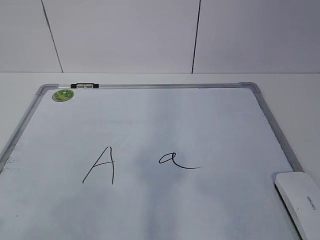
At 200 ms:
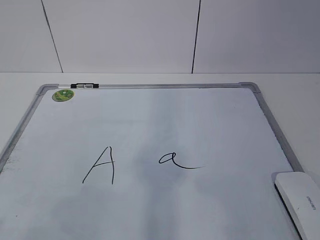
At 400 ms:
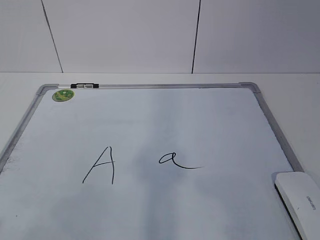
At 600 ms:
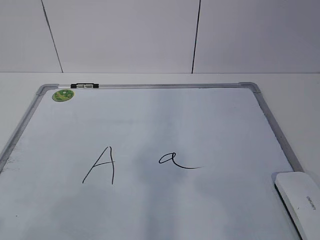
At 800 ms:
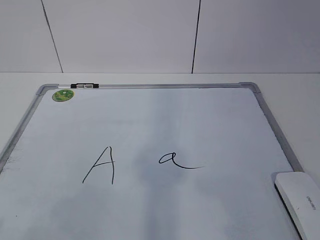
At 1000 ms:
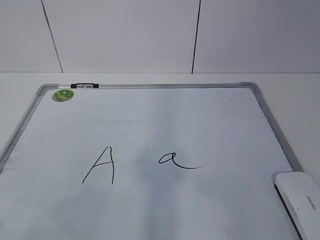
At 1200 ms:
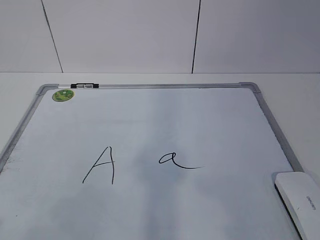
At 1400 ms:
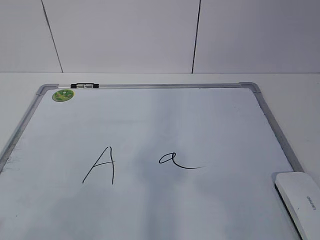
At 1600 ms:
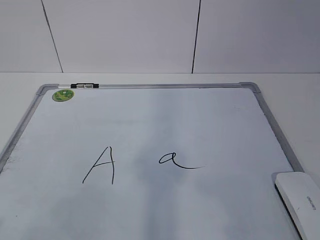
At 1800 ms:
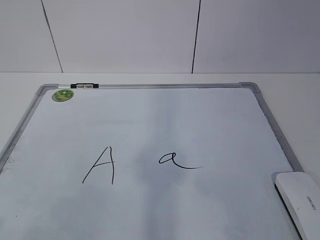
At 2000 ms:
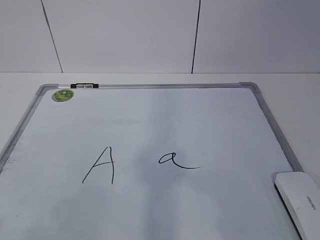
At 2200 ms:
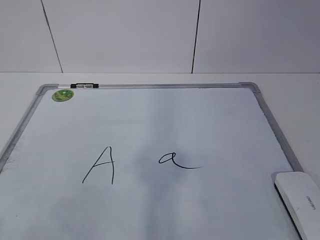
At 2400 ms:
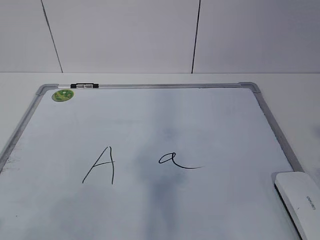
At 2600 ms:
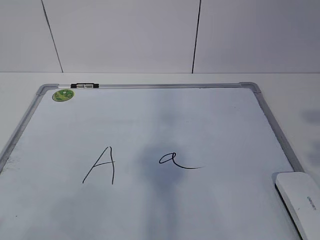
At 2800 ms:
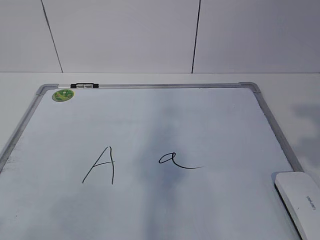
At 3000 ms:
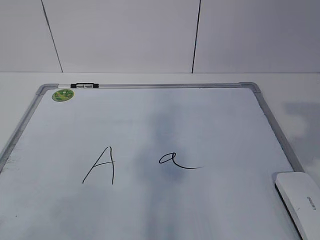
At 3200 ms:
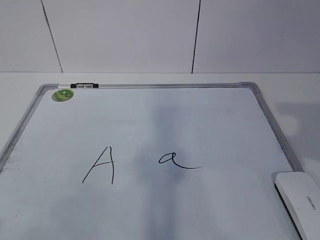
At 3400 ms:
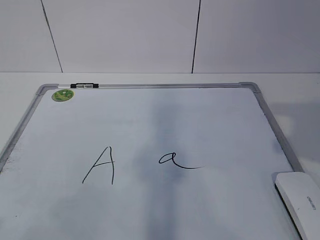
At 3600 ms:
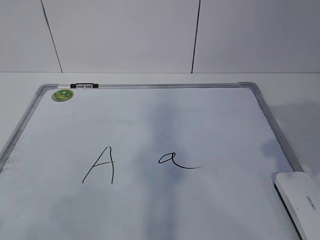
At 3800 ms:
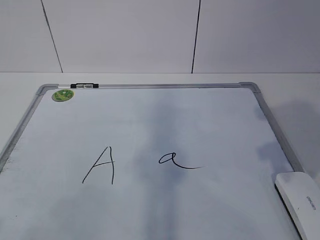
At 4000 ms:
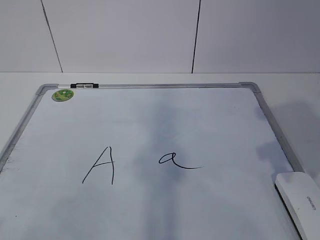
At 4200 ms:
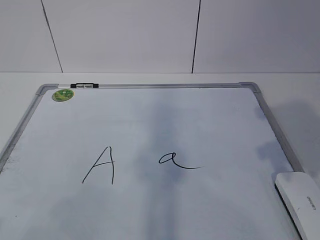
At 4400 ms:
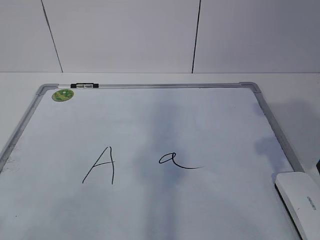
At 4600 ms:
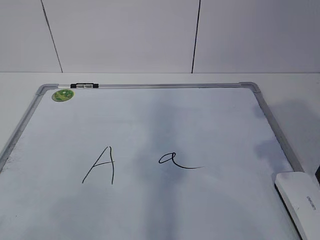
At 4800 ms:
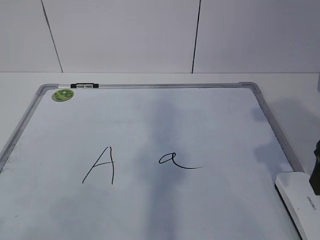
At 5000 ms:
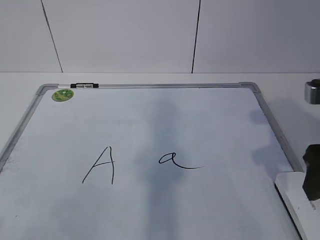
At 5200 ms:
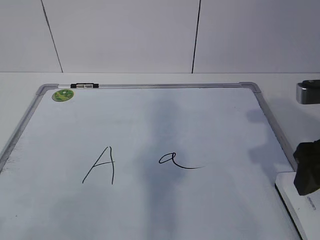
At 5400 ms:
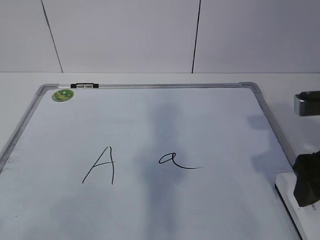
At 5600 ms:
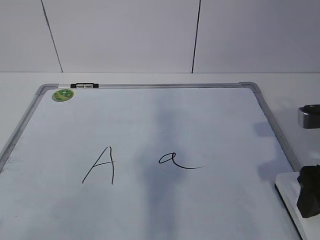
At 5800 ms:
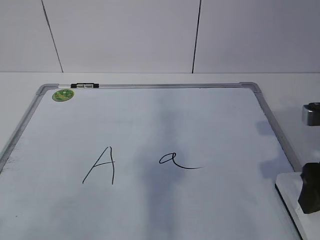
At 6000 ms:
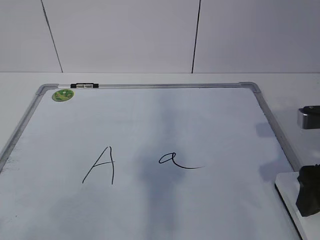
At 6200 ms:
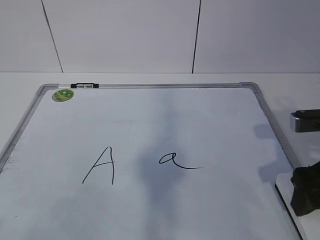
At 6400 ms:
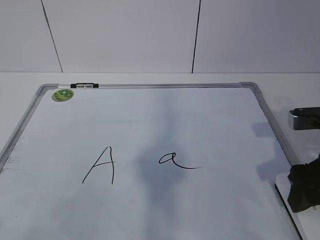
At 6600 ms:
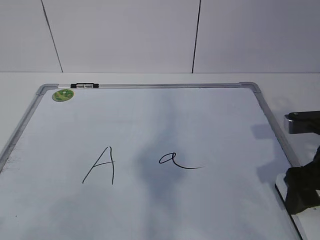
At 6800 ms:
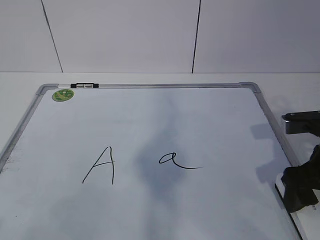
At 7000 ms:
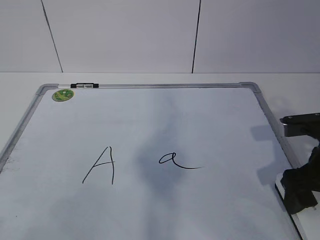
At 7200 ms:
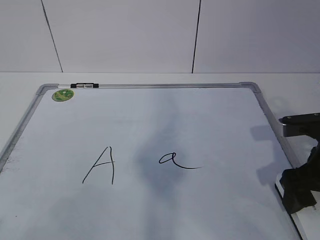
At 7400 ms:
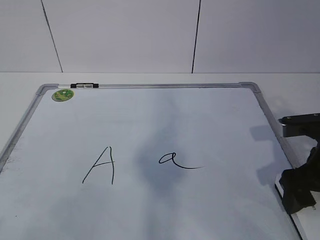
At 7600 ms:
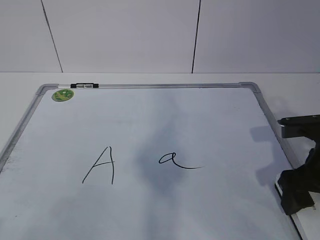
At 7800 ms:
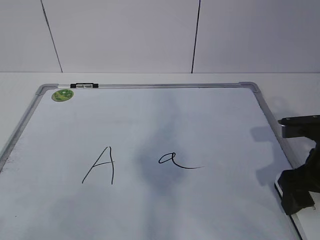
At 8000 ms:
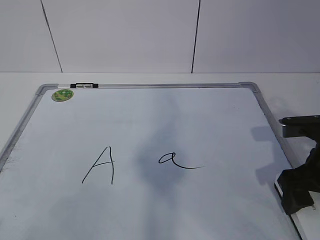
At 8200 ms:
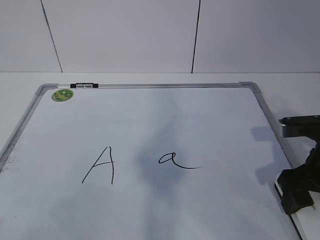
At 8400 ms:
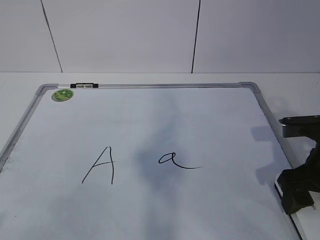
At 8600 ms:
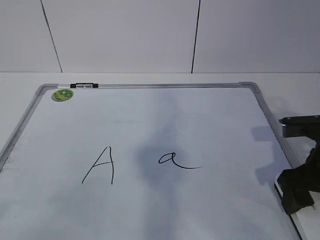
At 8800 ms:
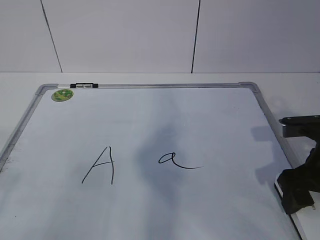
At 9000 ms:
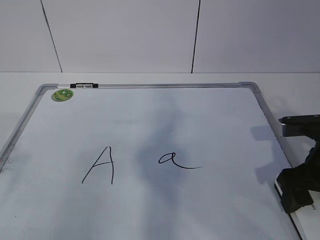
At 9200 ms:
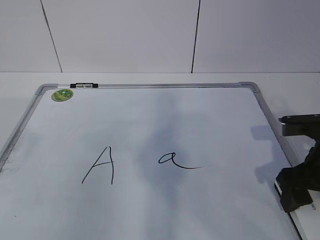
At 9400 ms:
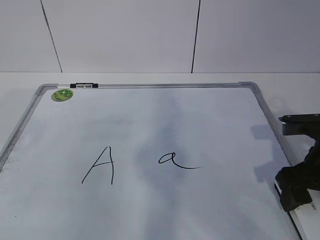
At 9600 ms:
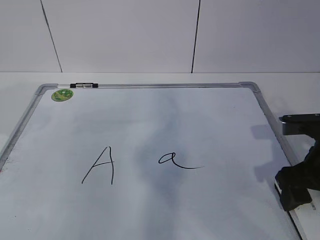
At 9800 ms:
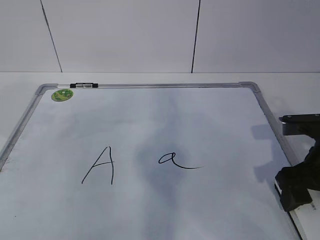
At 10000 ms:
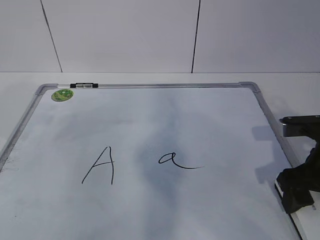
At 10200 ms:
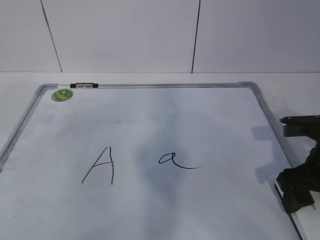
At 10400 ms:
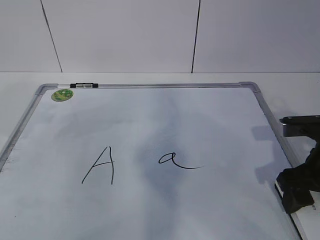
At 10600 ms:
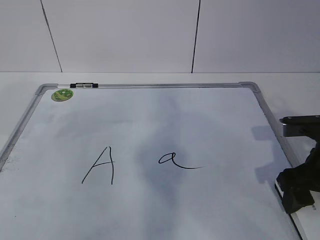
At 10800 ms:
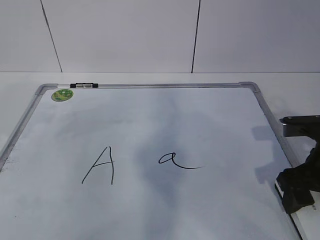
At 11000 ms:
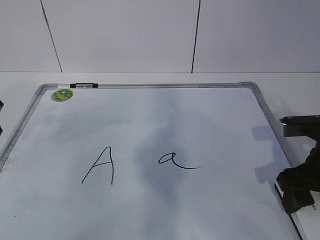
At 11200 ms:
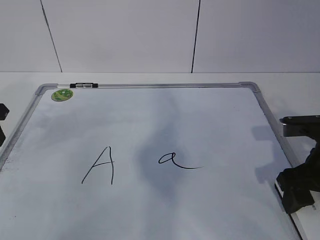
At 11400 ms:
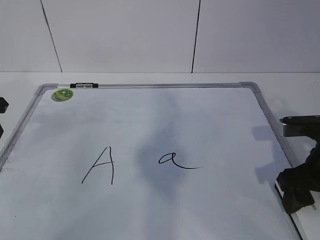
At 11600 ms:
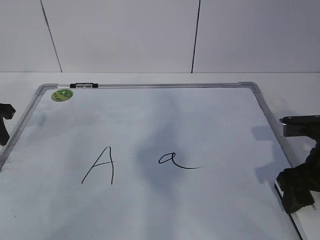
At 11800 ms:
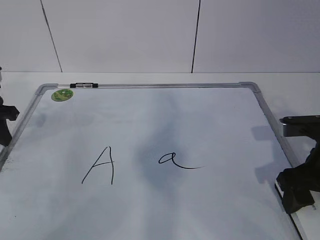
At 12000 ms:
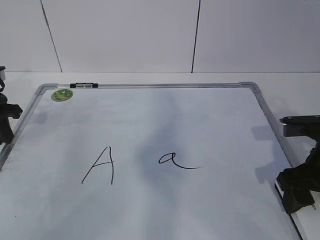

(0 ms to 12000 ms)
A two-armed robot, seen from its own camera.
Task of the whole recording: pick up the eraser on the blackboard and erase the letter "a".
Step, 0 ms - 6400 ms: Grab the eraser with your right hand.
4400 ms - 6000 ms: The right gripper heads downward, covering approximately 10 cm.
6000 ms - 7600 ms: The right gripper shifts by roughly 5 cm.
10400 ms - 12000 ms: The left gripper moves downward and forward, about 10 cm, and closes its fingers.

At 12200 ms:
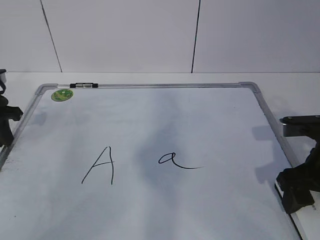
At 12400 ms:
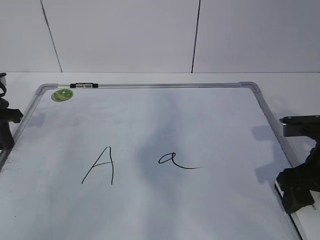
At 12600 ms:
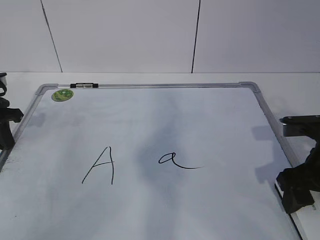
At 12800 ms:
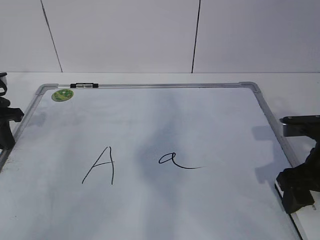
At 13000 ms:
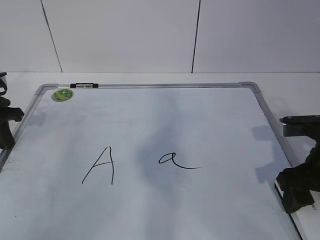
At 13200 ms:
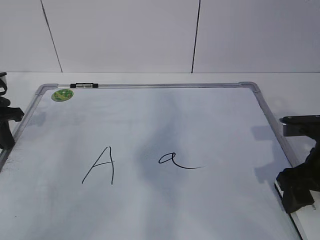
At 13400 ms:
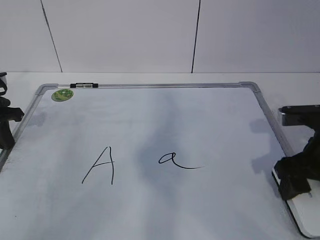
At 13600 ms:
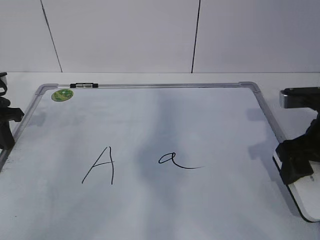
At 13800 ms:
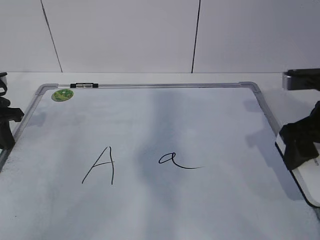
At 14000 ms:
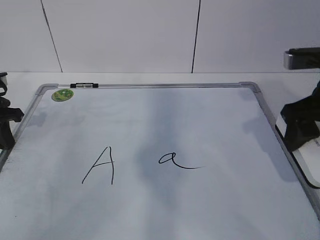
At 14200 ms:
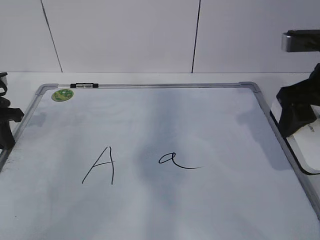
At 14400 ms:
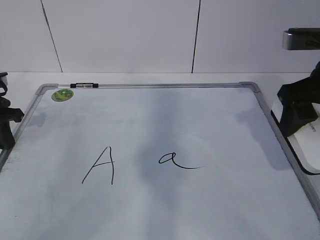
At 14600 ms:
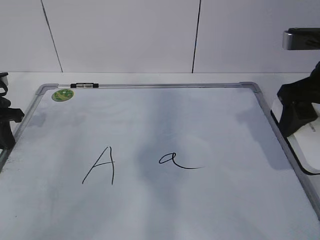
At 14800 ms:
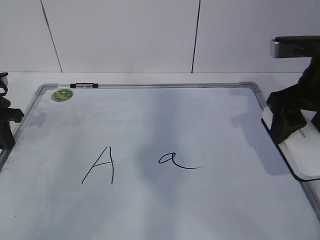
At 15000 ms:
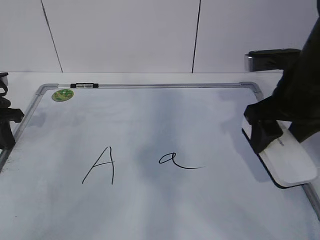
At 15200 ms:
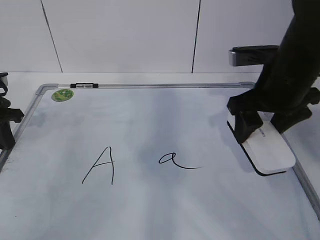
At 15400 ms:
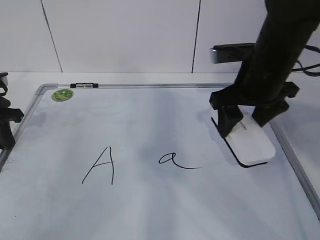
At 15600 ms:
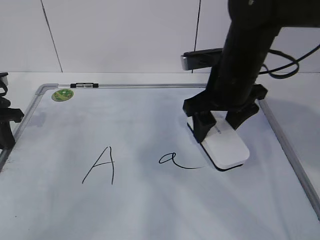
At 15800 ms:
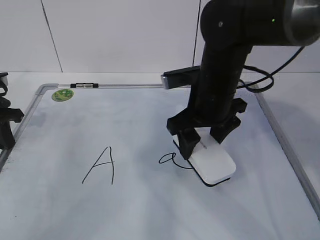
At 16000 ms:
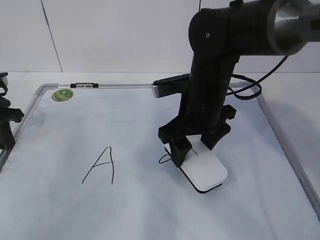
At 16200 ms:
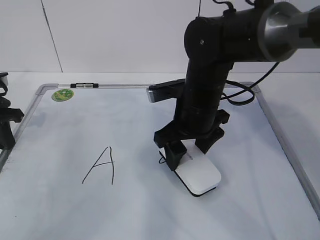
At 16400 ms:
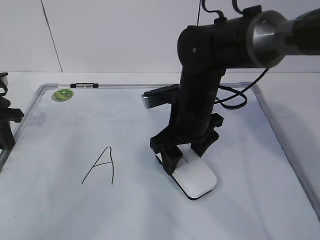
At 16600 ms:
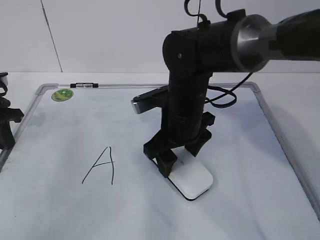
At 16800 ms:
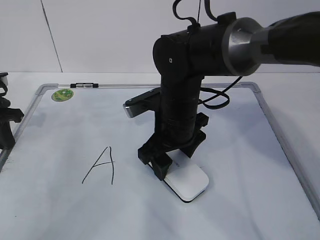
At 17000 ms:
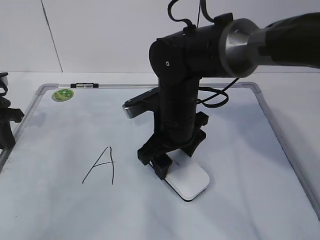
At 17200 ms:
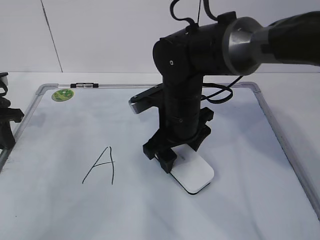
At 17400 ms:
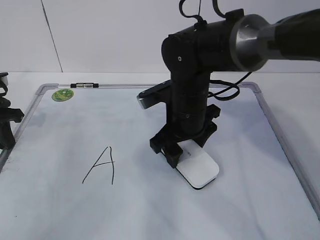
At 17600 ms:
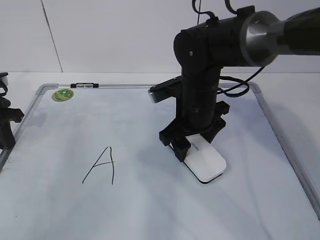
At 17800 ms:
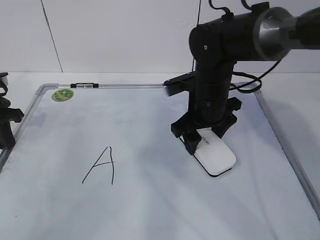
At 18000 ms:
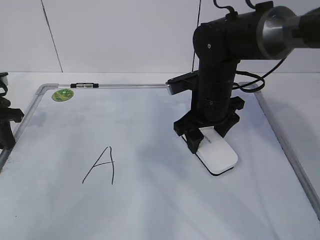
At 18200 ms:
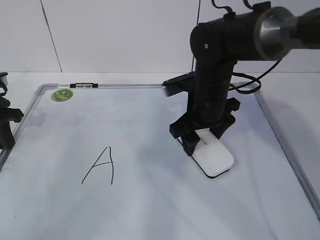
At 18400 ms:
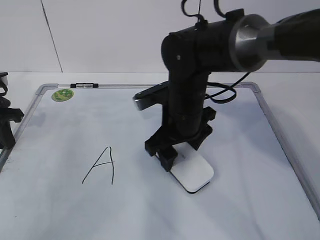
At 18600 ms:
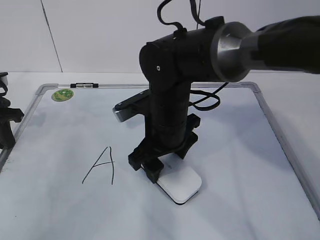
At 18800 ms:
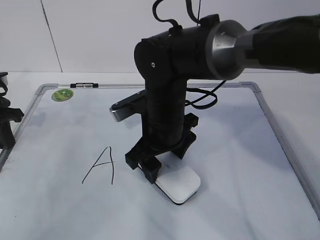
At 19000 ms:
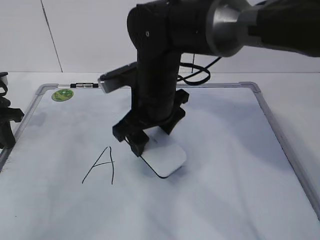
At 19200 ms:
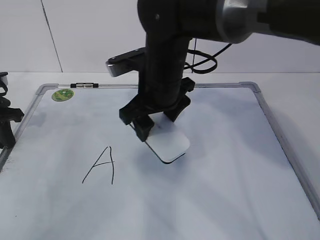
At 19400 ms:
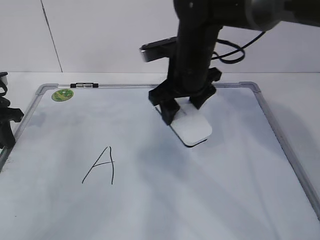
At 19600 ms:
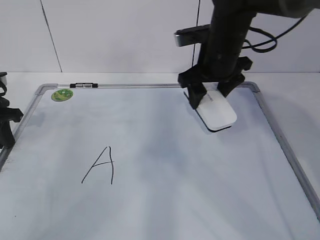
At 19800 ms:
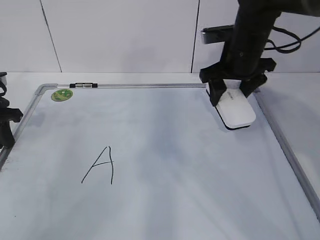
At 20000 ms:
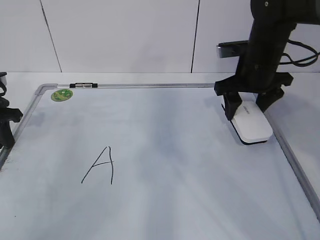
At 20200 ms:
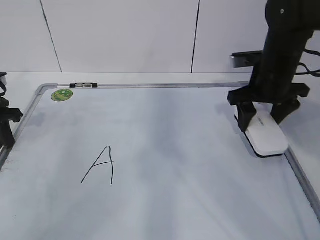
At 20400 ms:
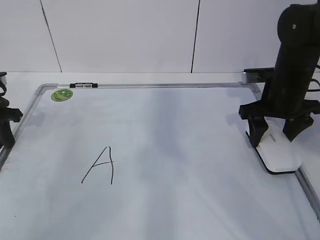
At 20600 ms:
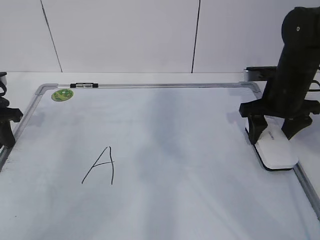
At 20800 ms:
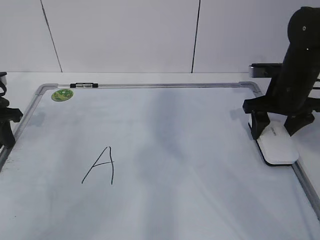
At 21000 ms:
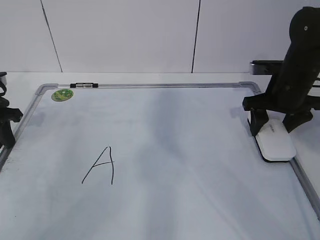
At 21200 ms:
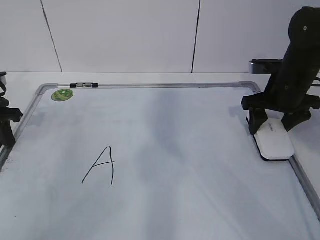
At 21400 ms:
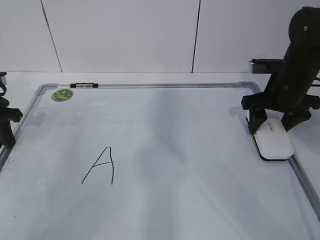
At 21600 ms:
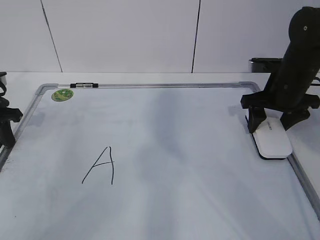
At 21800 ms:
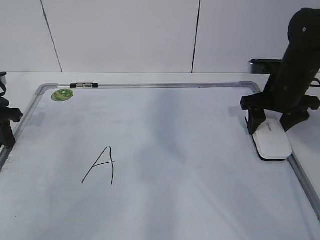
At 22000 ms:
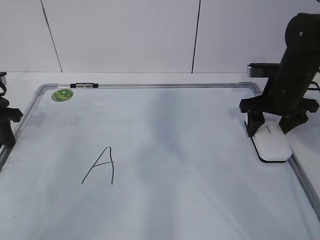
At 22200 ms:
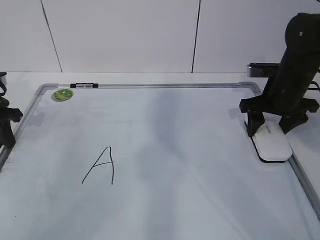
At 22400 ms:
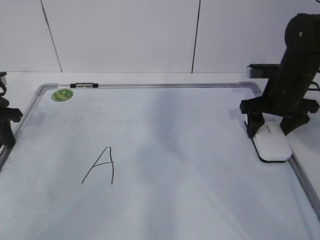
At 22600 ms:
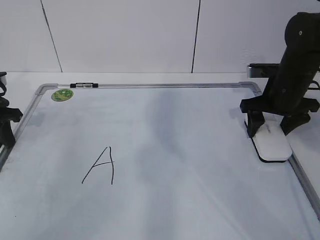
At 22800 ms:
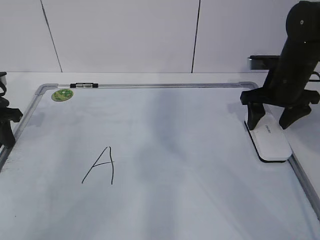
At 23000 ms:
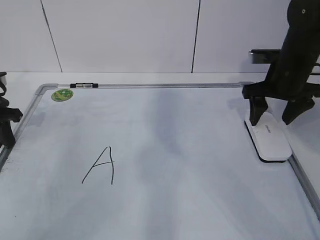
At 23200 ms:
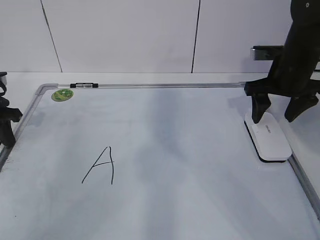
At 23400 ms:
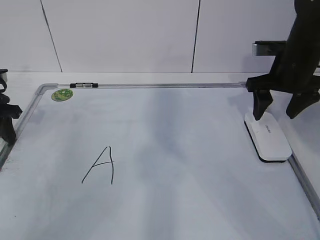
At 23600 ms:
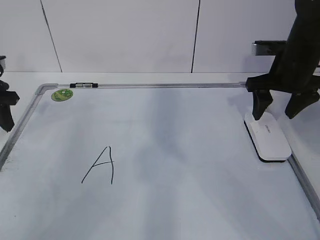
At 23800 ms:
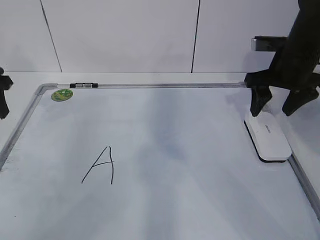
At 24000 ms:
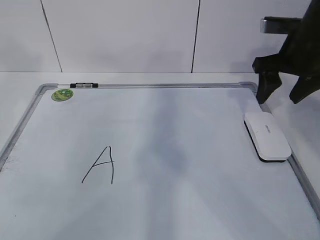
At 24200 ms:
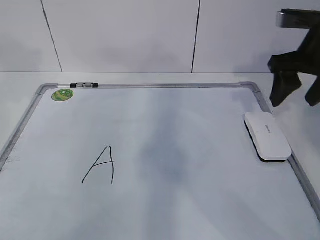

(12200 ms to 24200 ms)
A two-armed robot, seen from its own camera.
Task of the whole recording: pick up the eraser on the blackboard and erase the letter "a".
Step, 12200 ms - 15400 ms: Erase the letter a with your right hand.
Step, 16400 ms - 18600 ms: Put down the eraser with your right hand.
12200 ms - 13800 ms: The right gripper moves upward, approximately 5 cm.
13800 ms - 15200 ms: The right gripper goes some 5 cm to the left.
15200 ms - 16600 ms: The right gripper is displaced to the left and downward by about 15 cm.
16600 ms - 18200 ms: The right gripper changes place by approximately 5 cm.
18200 ms - 19800 ms: The right gripper moves upward, to the right and forward, approximately 10 cm.
19800 ms - 21200 ms: The right gripper is displaced to the right and downward by roughly 10 cm.
21200 ms - 22600 ms: Both grippers stay about where they are.
22600 ms - 24200 ms: The left gripper goes some 15 cm upward, and opens up; the right gripper goes some 15 cm upward and backward.
